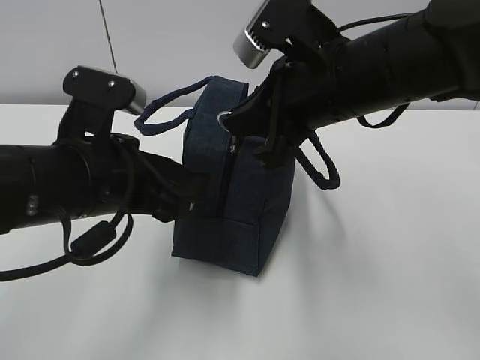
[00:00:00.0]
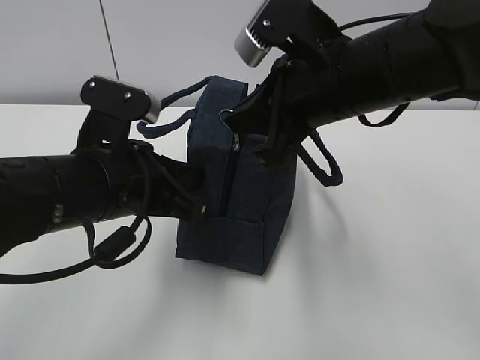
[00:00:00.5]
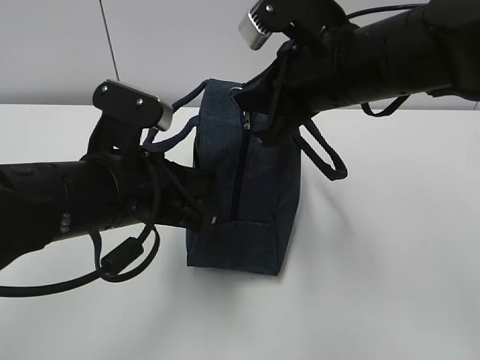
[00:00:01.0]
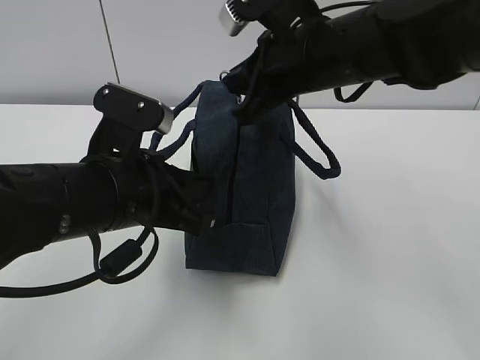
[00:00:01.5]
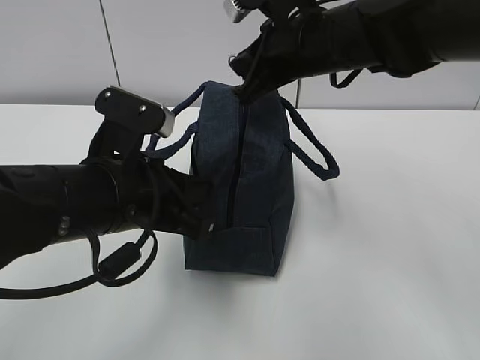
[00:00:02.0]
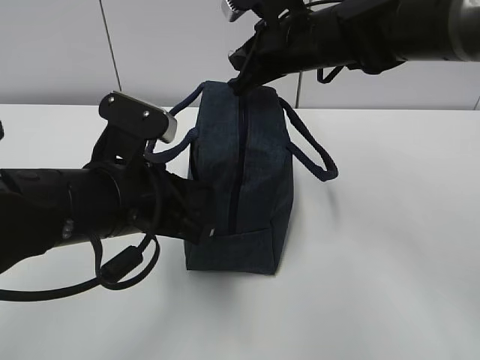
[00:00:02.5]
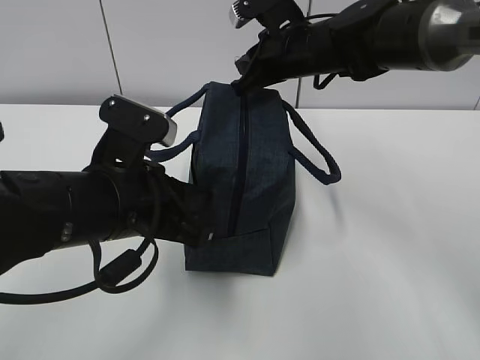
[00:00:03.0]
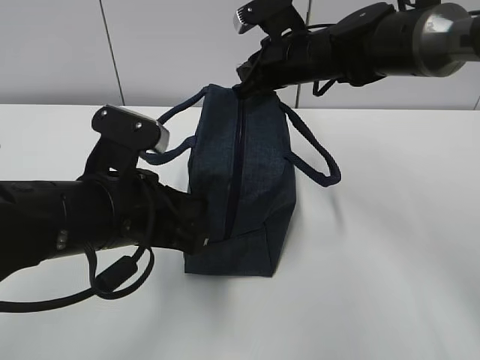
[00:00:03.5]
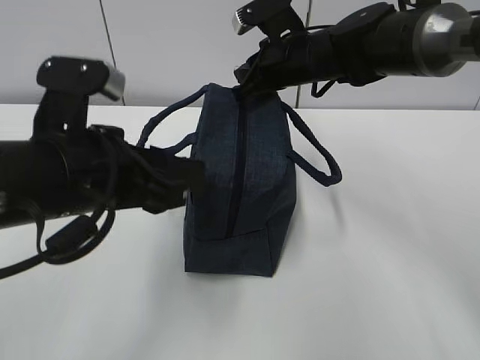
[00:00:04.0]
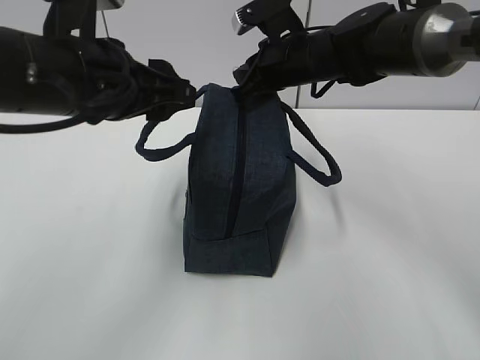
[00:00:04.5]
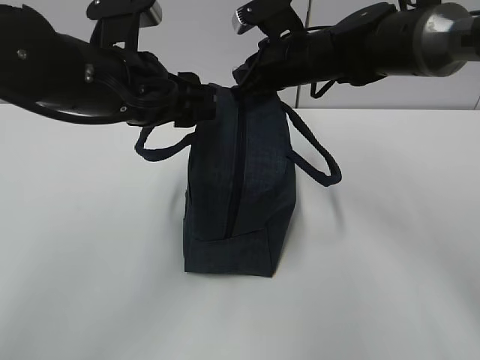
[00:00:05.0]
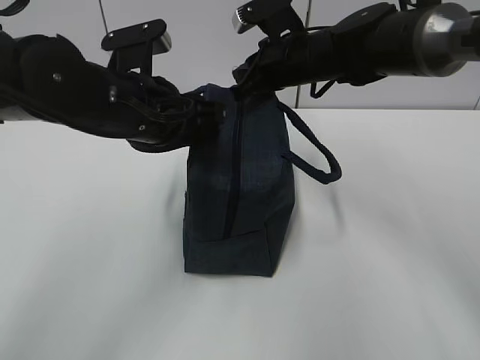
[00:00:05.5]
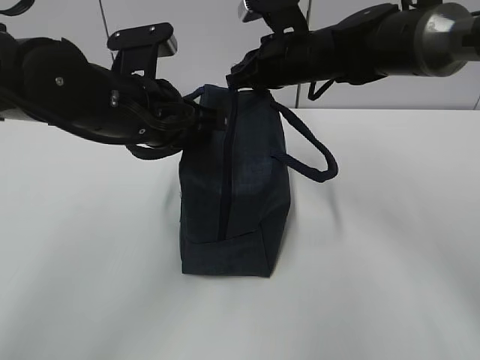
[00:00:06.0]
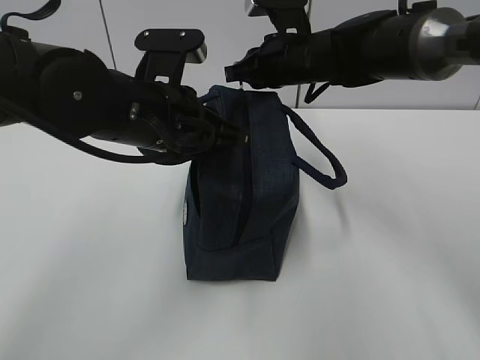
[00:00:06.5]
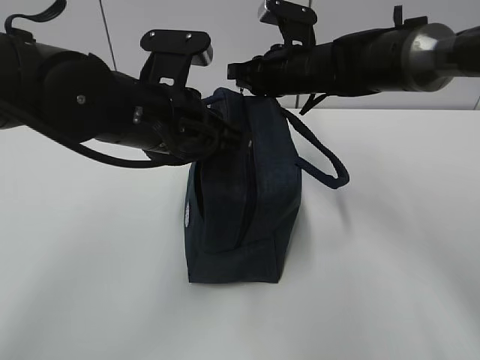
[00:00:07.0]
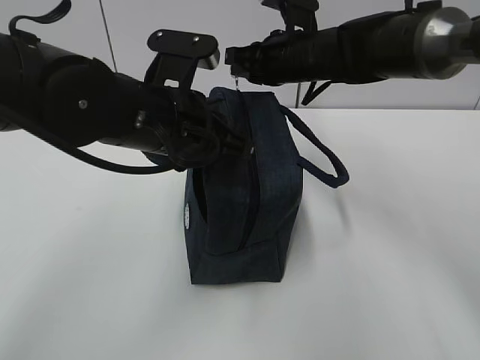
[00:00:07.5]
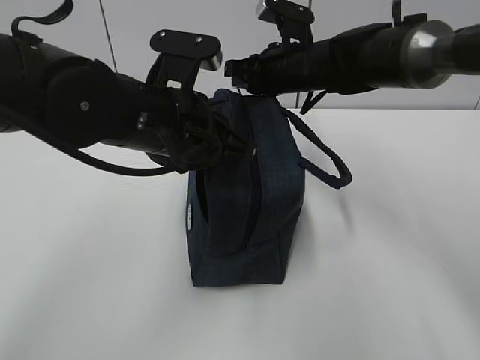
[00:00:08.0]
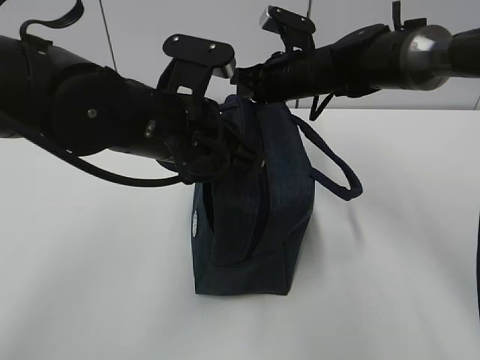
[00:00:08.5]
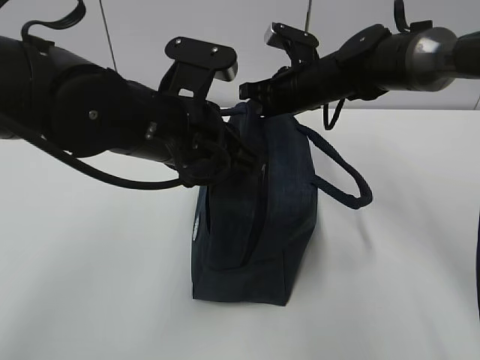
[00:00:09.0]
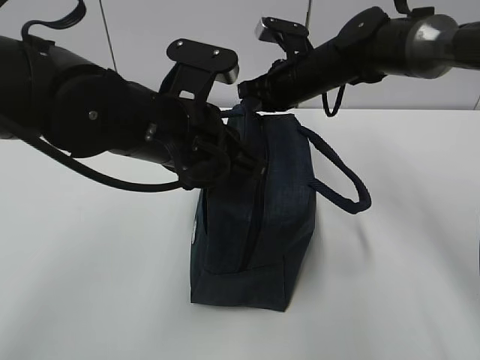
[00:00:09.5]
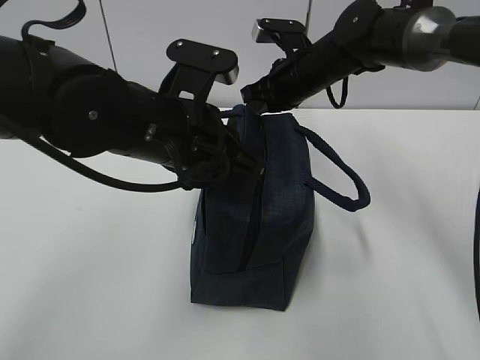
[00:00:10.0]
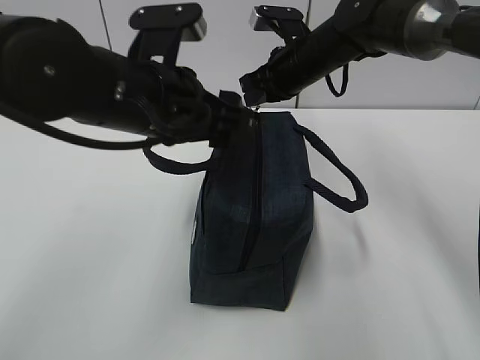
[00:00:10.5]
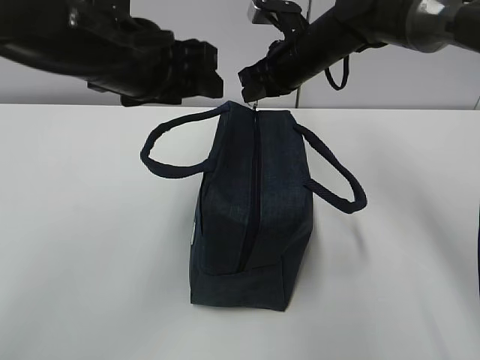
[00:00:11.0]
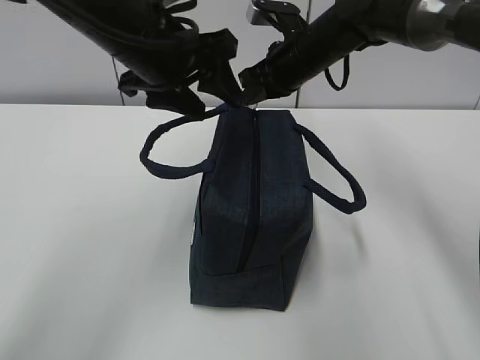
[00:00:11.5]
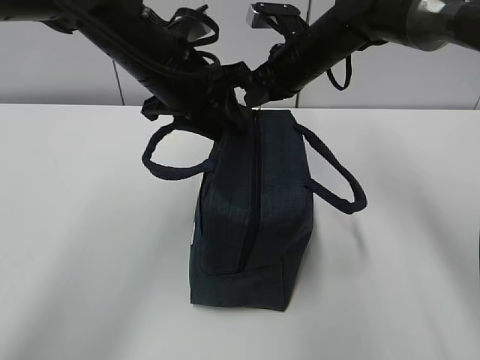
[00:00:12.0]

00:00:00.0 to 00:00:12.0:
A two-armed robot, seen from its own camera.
Step, 00:00:00.0 to 00:00:03.5: Pull the zipper with your right hand.
00:00:00.0 to 00:00:02.0: The right gripper travels forward by approximately 10 cm, while the left gripper closes.
00:00:02.0 to 00:00:04.0: The right gripper heads forward and downward, covering about 10 cm. Meanwhile the left gripper opens.
00:00:04.0 to 00:00:06.0: The left gripper heads forward, covering some 10 cm, and closes.
00:00:10.0 to 00:00:12.0: The left gripper travels forward by about 10 cm, and opens.

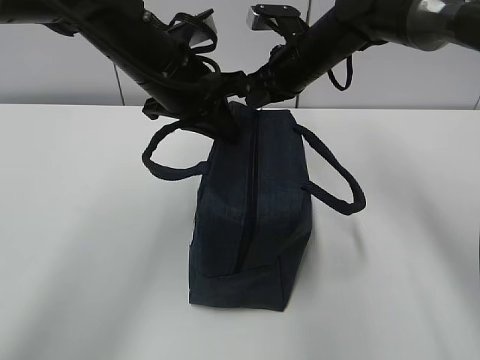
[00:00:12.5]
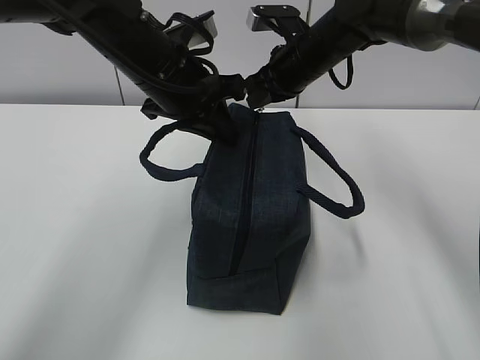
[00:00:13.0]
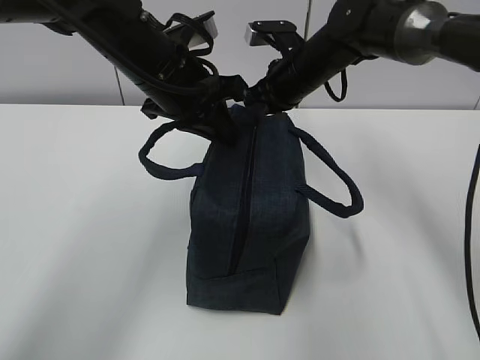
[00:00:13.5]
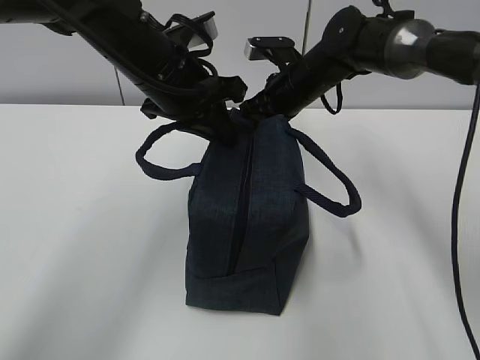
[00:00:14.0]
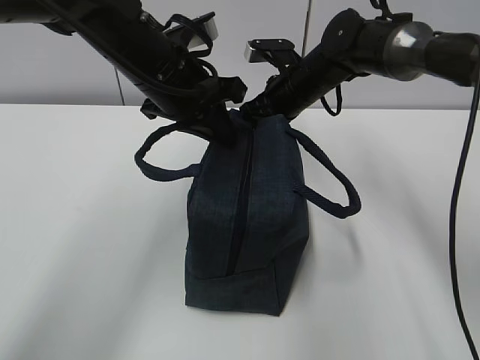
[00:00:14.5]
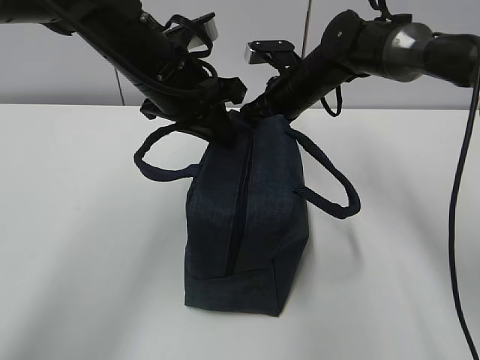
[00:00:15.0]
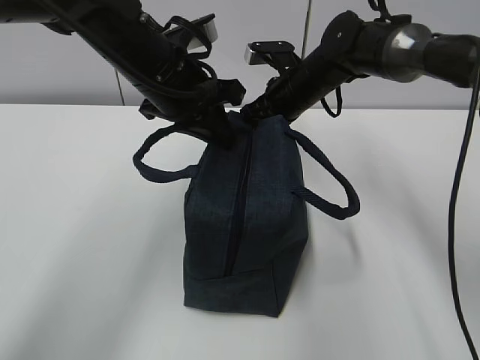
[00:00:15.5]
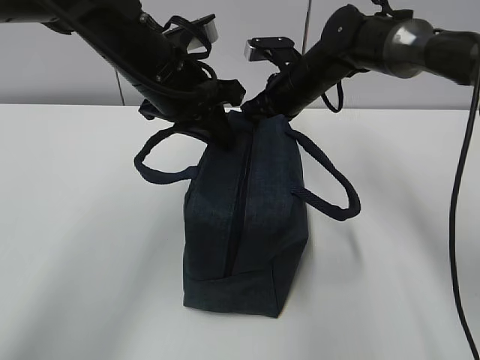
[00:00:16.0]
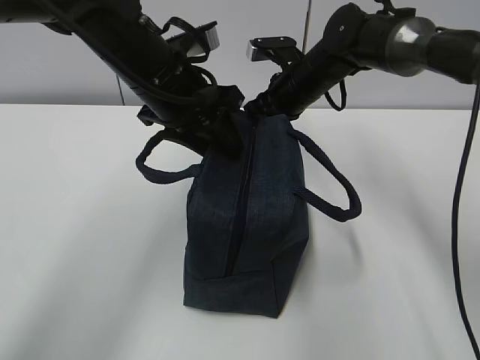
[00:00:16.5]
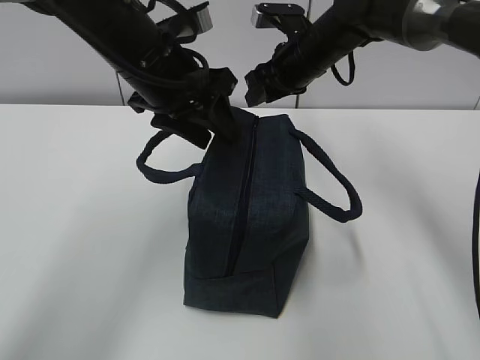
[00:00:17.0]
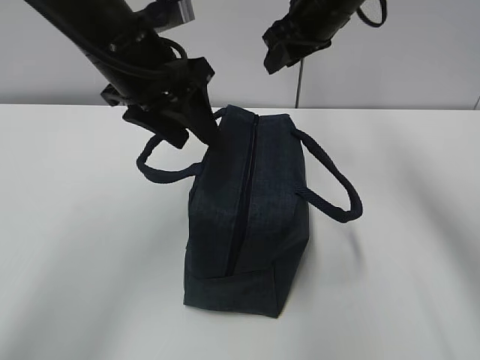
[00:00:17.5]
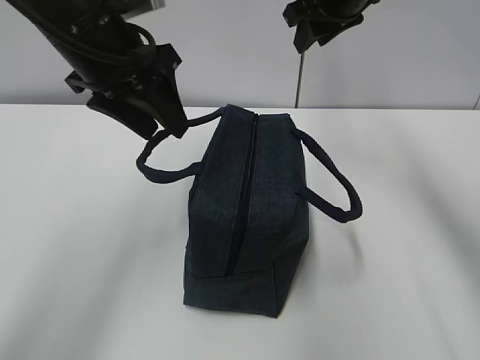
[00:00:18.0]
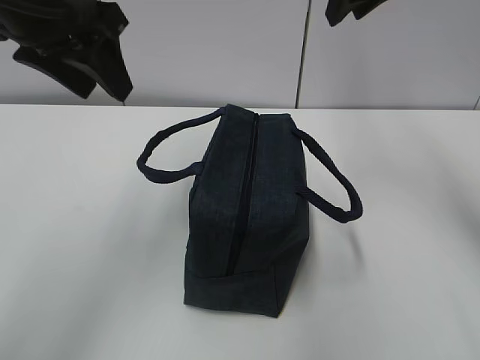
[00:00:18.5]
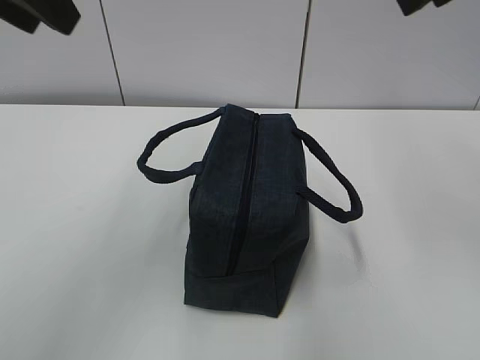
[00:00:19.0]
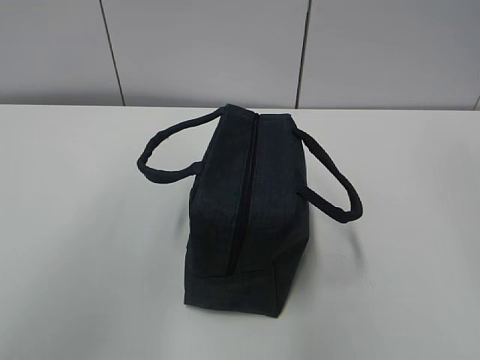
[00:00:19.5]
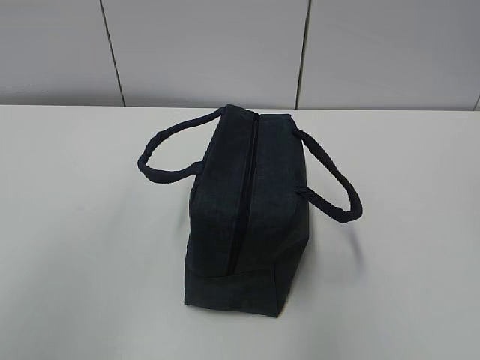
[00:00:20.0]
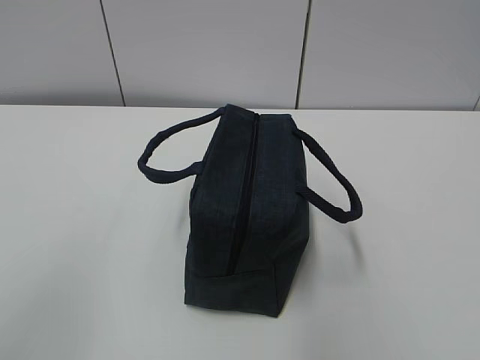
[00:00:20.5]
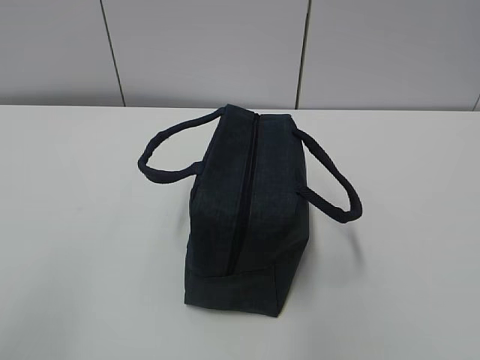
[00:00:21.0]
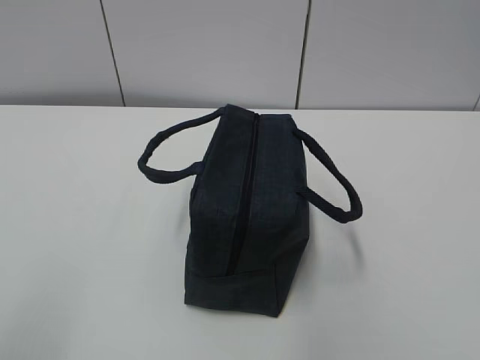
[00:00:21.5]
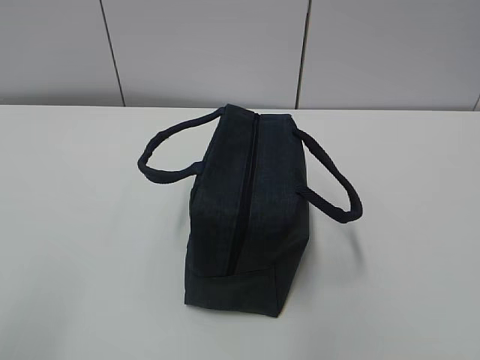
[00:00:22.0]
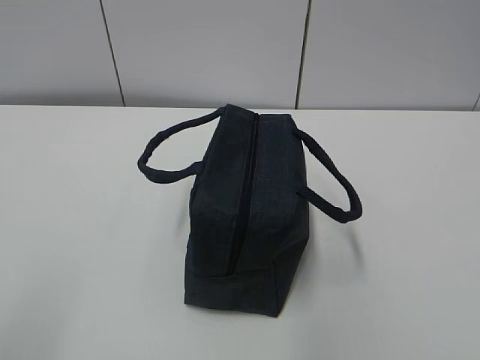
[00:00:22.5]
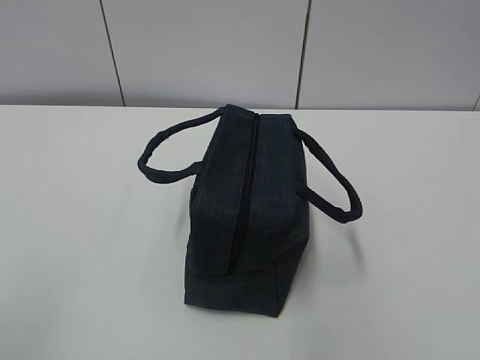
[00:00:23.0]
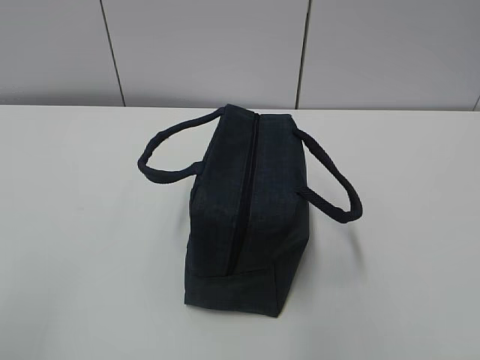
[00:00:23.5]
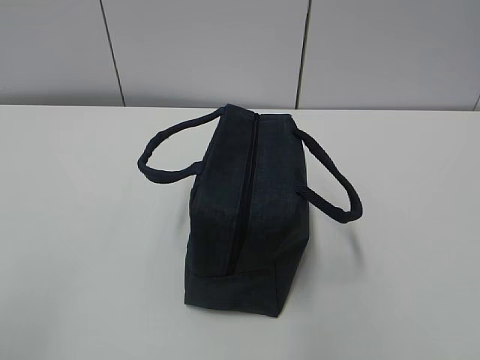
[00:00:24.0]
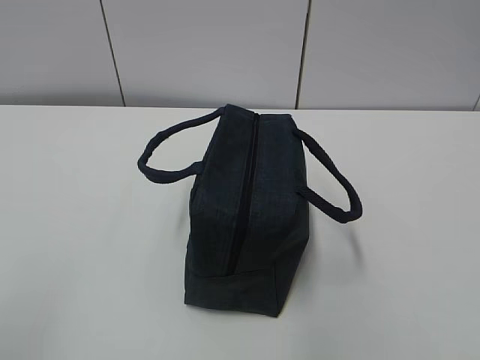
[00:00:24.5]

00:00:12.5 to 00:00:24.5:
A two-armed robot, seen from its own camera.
00:00:12.5 to 00:00:14.5: The right gripper changes place by about 5 cm.
00:00:14.5 to 00:00:16.5: The left gripper opens.
00:00:16.5 to 00:00:18.5: The left gripper is displaced upward and to the left by approximately 15 cm. The right gripper goes some 20 cm upward and backward.
00:00:18.5 to 00:00:20.5: The right gripper shifts some 40 cm backward, while the left gripper travels backward and to the left by about 35 cm.
